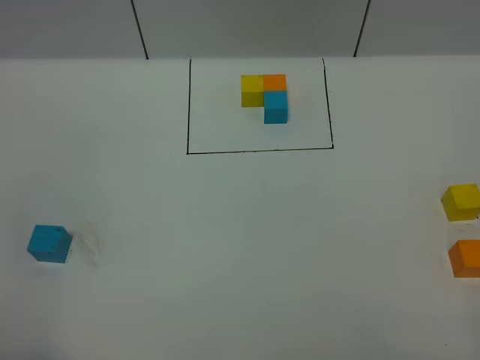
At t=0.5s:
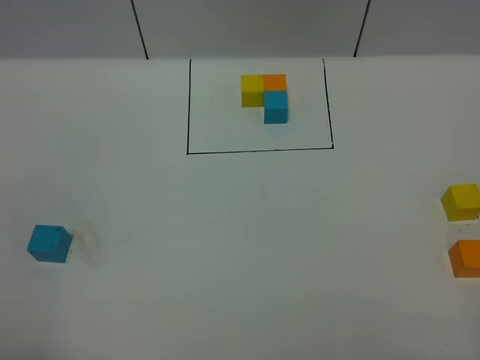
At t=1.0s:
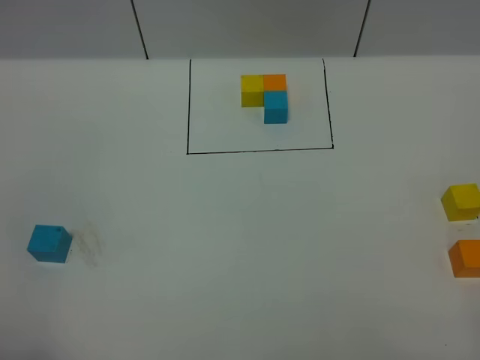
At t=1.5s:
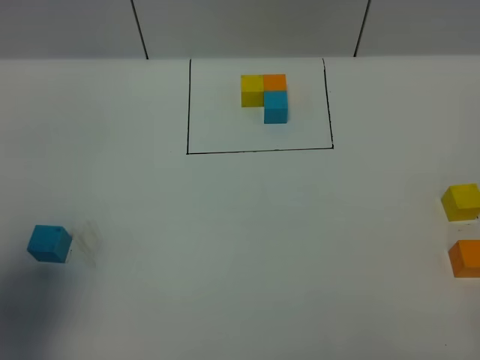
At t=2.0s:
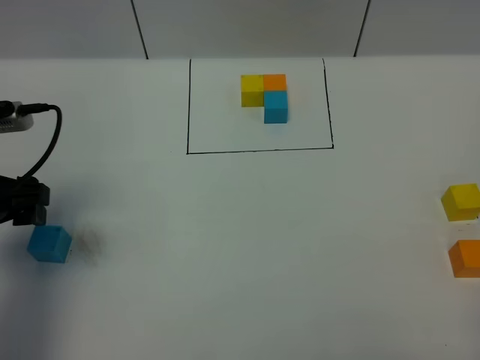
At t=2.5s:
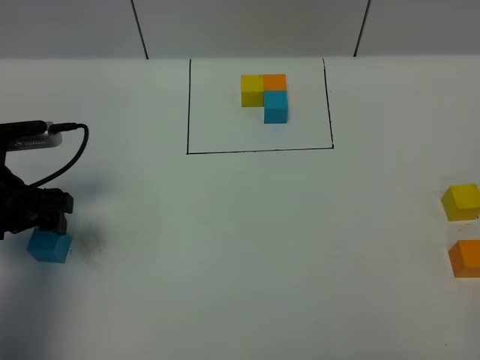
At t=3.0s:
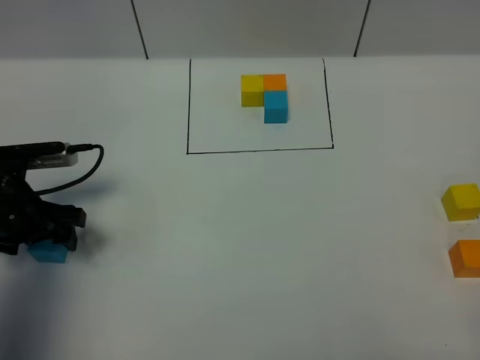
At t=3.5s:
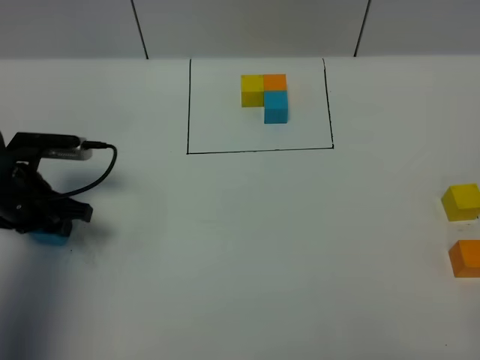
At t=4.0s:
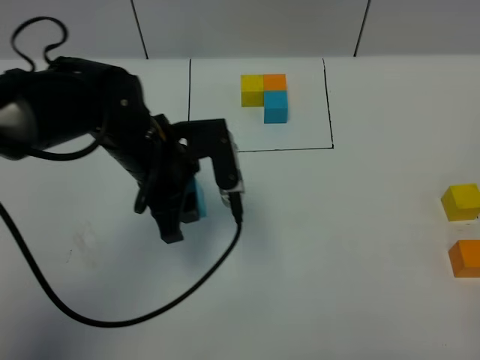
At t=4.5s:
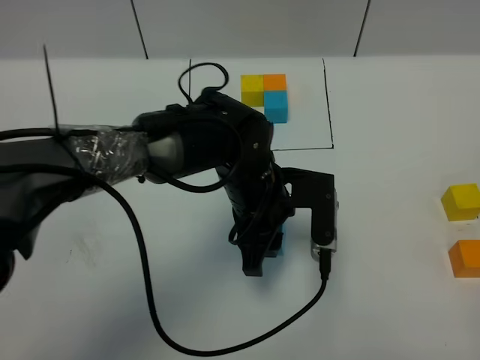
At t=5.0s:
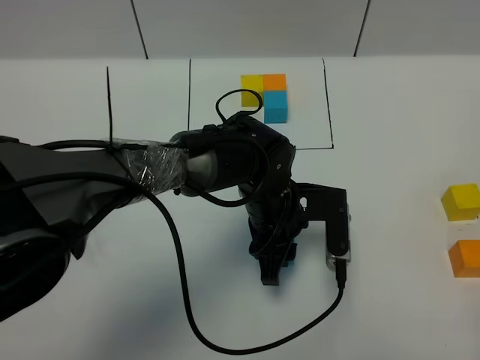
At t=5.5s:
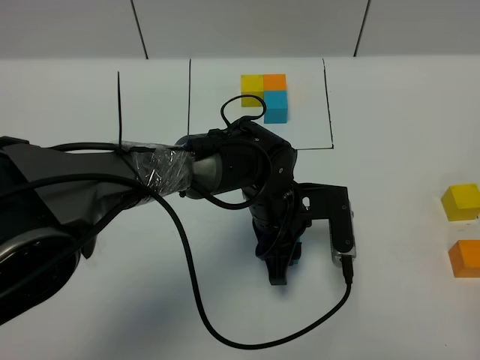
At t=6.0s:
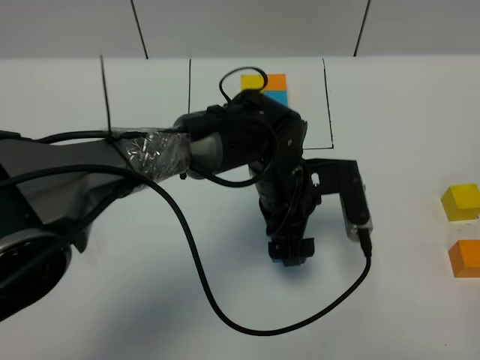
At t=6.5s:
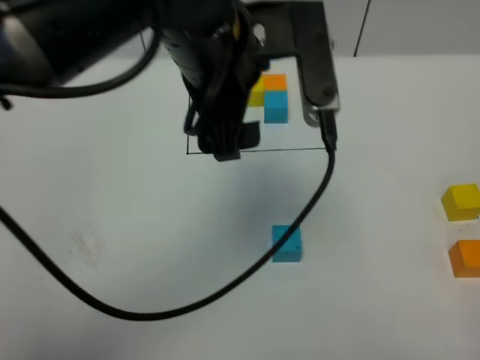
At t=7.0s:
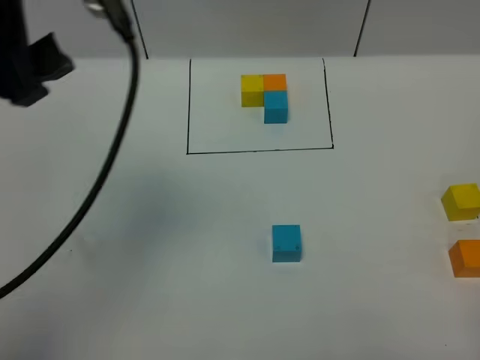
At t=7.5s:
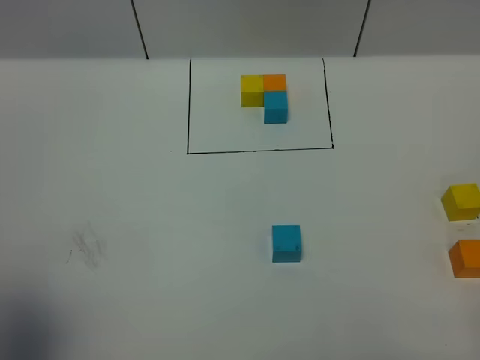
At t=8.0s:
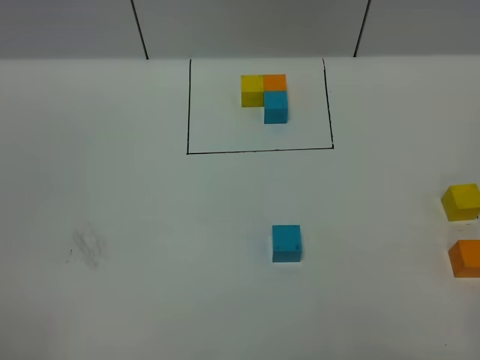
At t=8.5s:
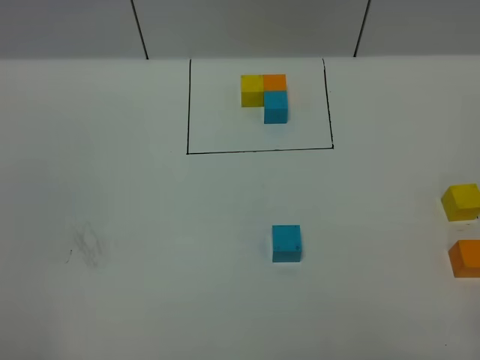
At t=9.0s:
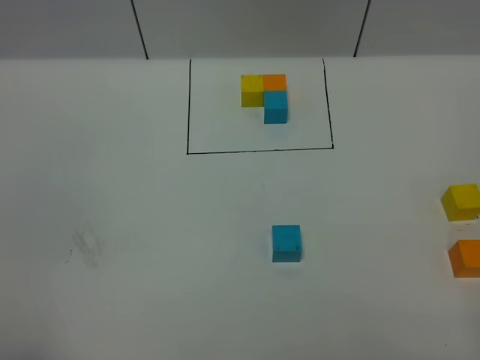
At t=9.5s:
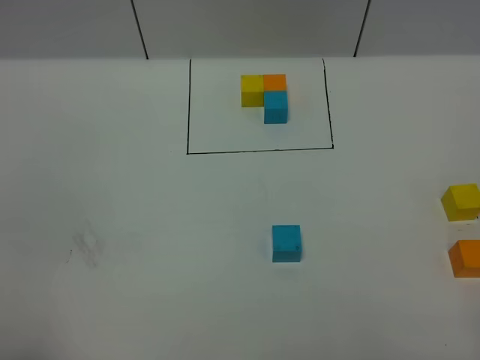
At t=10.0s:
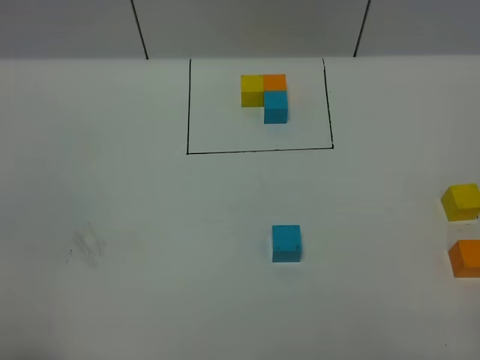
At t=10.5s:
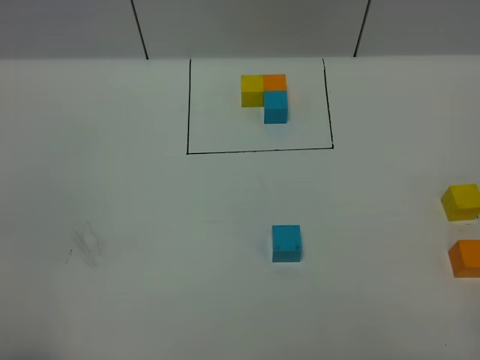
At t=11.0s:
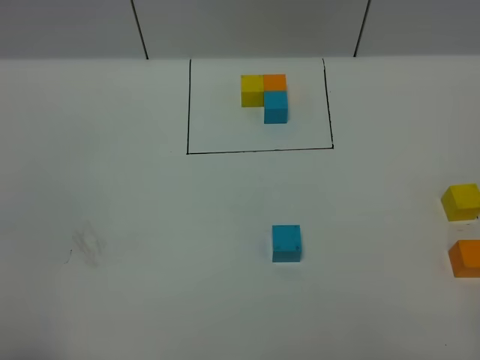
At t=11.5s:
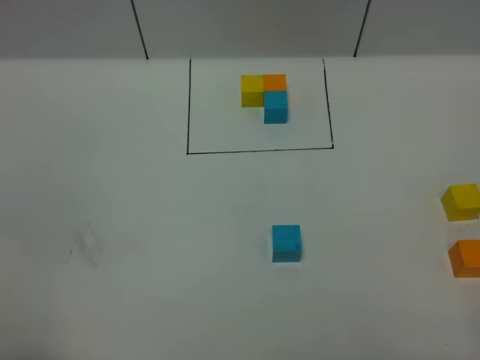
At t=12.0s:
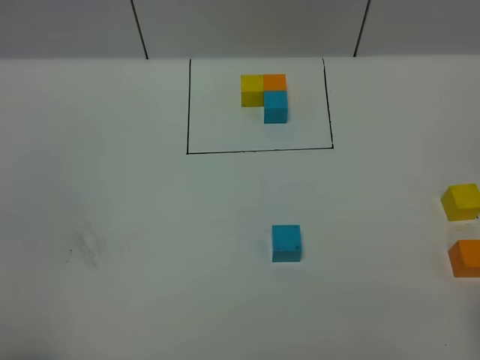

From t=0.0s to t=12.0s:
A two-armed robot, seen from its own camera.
Task of the whole recording: According to the building block template in front, assemble the scattered blocks together.
Step, from t=1.5s to t=6.0s: Put the blue cube in the center of the table.
From t=0.0s to t=2.0s: The left gripper is displaced forward by approximately 25 cm.
From t=2.0s to t=4.0s: The left gripper travels to the right by approximately 20 cm, and closes its fingers.
From t=4.0s to t=6.0s: The left gripper is displaced to the right by approximately 15 cm, and opens.
From t=6.0s to t=8.0s: The left gripper moves to the left, backward and upward, roughly 50 cm.

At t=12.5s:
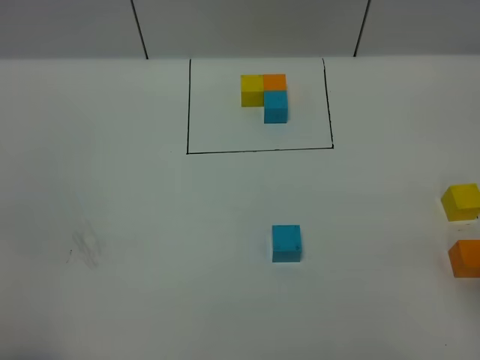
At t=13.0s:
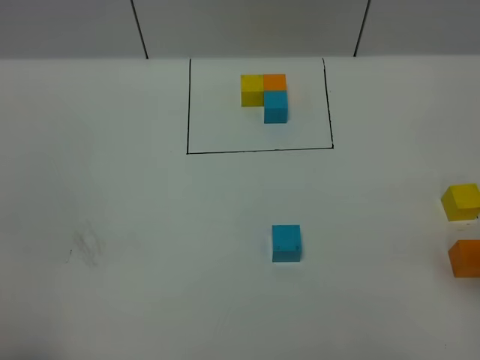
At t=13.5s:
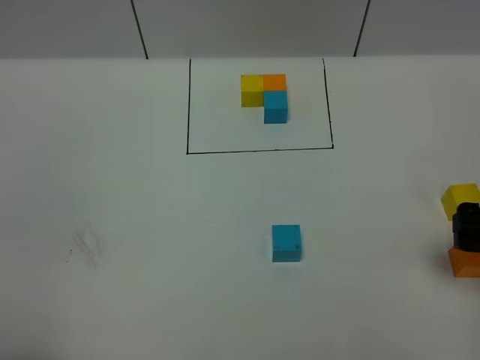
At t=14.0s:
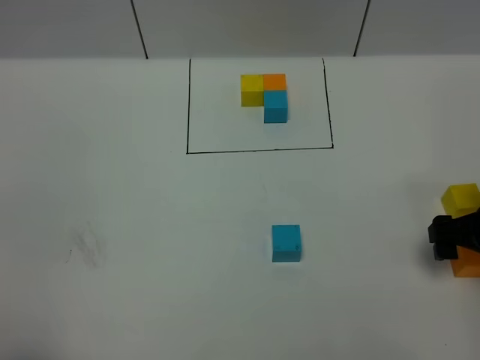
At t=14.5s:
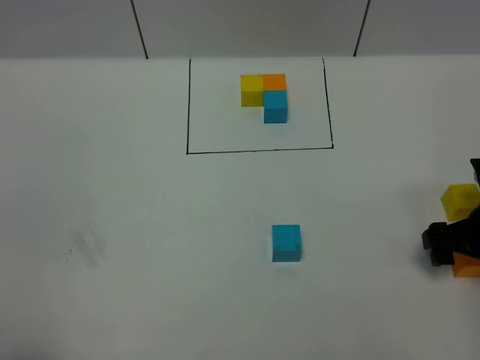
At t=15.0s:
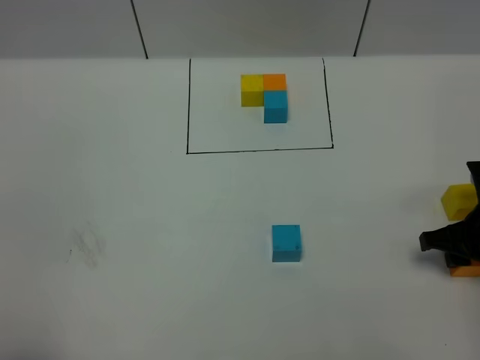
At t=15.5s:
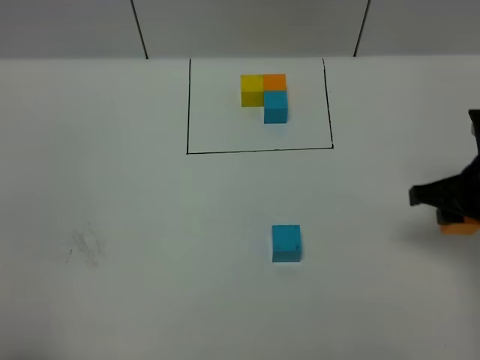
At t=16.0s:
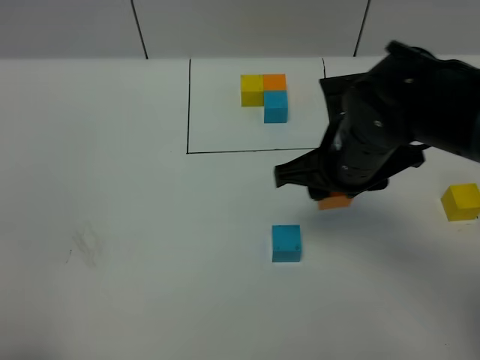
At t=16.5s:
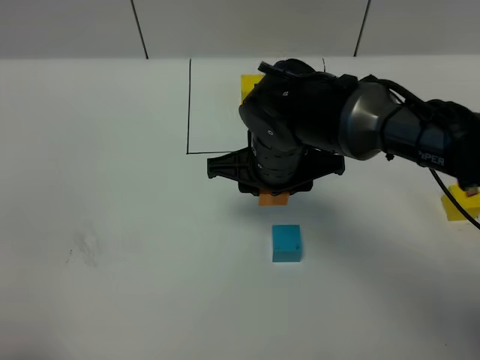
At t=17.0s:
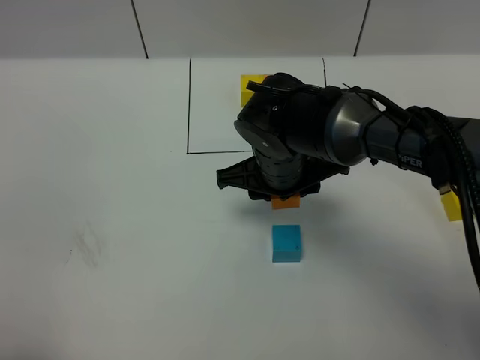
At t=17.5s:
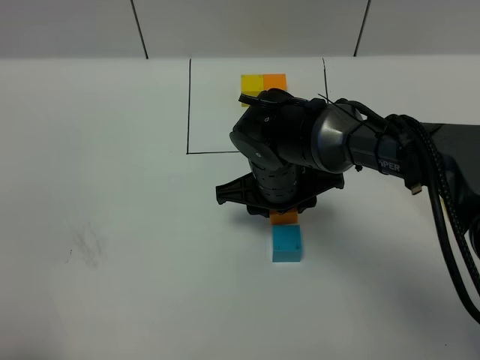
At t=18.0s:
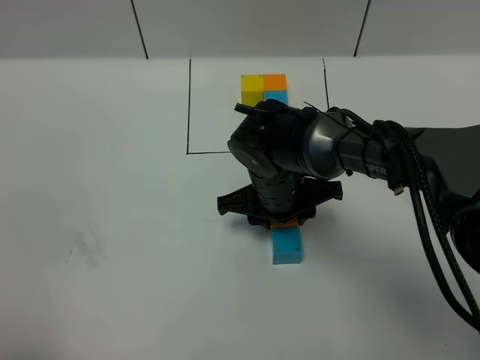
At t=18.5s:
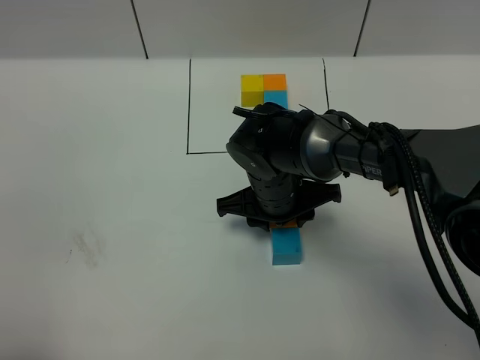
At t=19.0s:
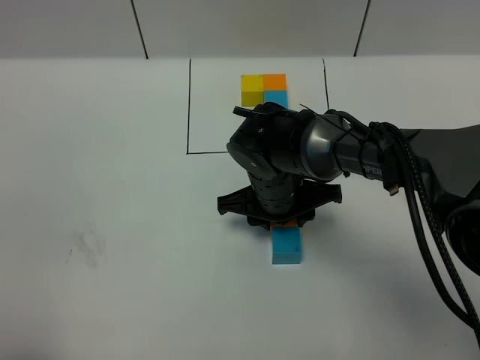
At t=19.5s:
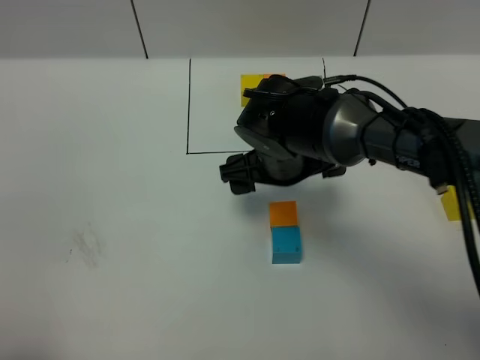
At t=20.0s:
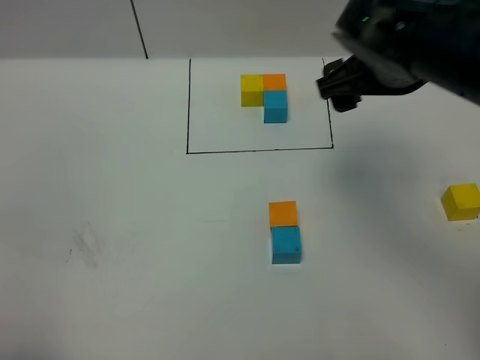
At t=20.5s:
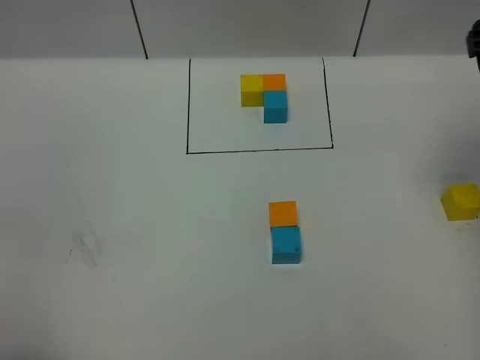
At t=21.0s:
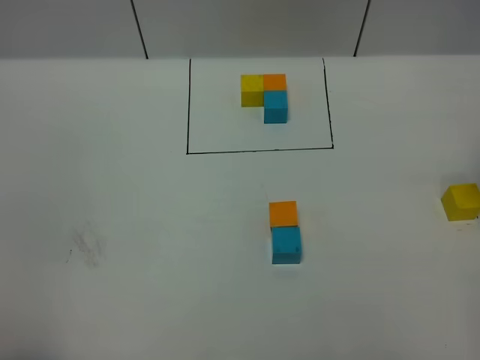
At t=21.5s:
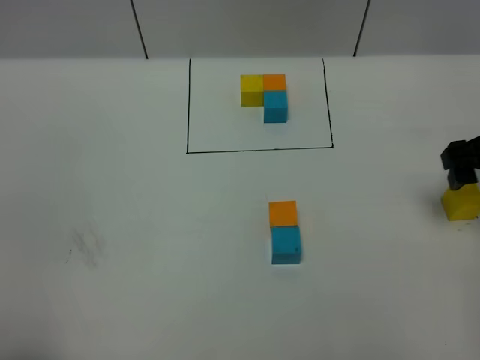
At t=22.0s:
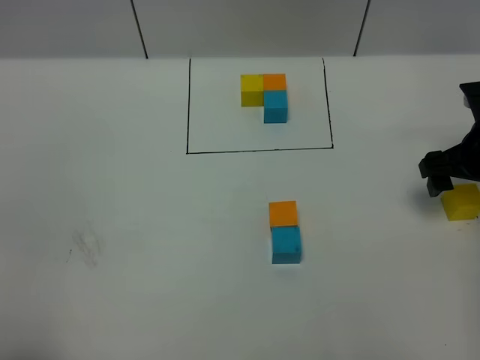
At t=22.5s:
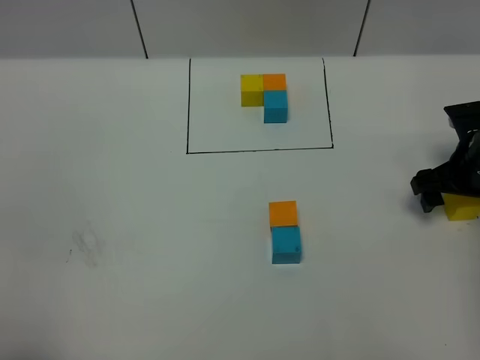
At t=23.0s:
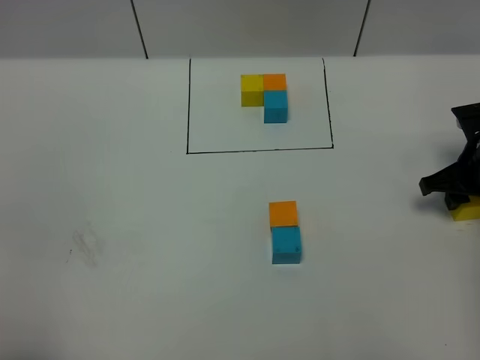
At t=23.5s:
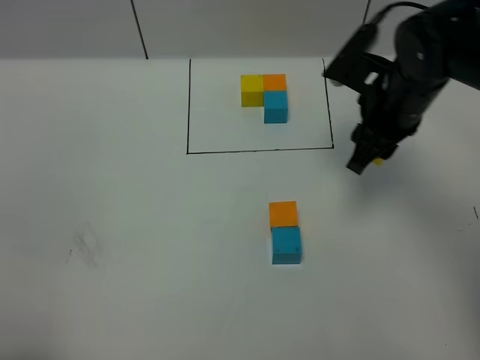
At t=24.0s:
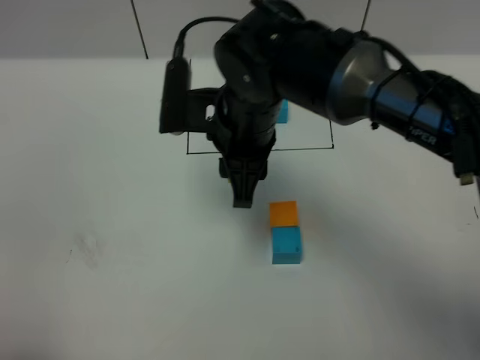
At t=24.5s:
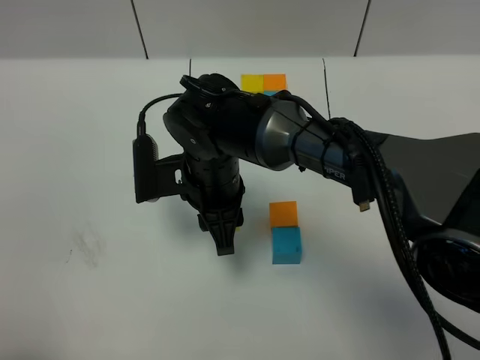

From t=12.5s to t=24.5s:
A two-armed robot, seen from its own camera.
Task of the whole recording: According to the building block template in front, assemble the scattered blocks together.
Step, from t=12.5s to t=19.0s: Put the orange cube on the behind of the blue cube.
From t=12.5s to t=14.5s: The right gripper goes about 20 cm downward and forward.
From t=14.5s to t=16.5s: The right gripper heads to the left, covering roughly 25 cm, and closes its fingers.
From t=16.5s to t=18.5s: The right gripper travels downward by roughly 5 cm.
From t=18.5s to t=20.5s: The right gripper shifts approximately 35 cm upward and to the right, and opens up.
From t=20.5s to t=22.5s: The right gripper moves downward, approximately 25 cm.
From t=22.5s to t=24.5s: The right gripper shifts roughly 35 cm to the left, and closes its fingers.

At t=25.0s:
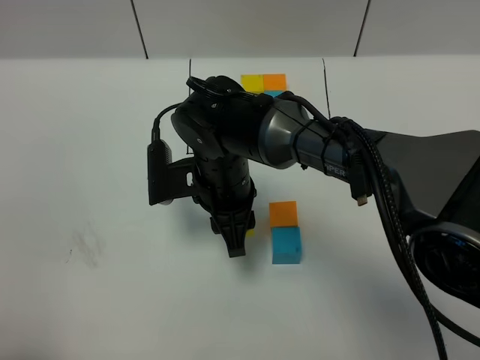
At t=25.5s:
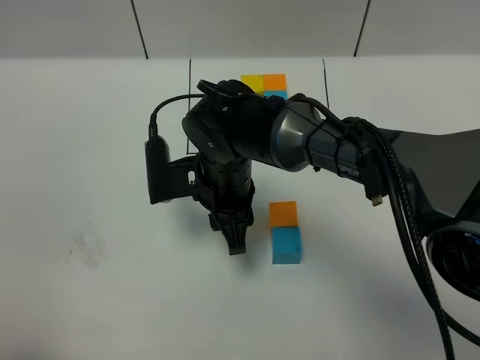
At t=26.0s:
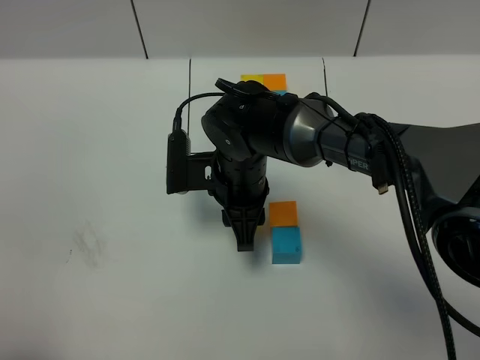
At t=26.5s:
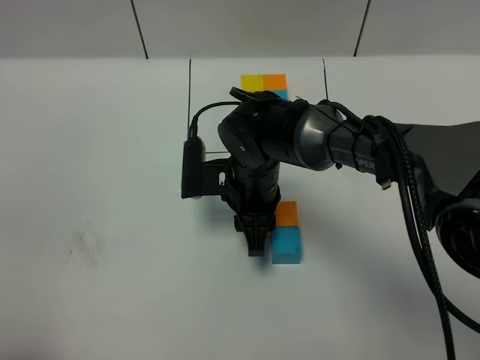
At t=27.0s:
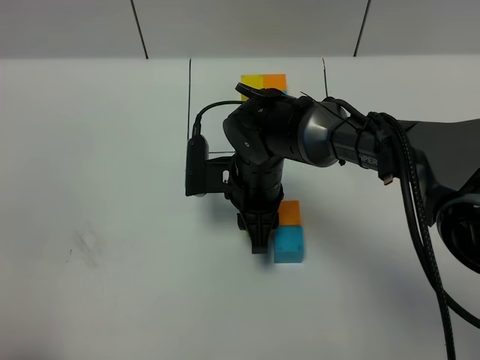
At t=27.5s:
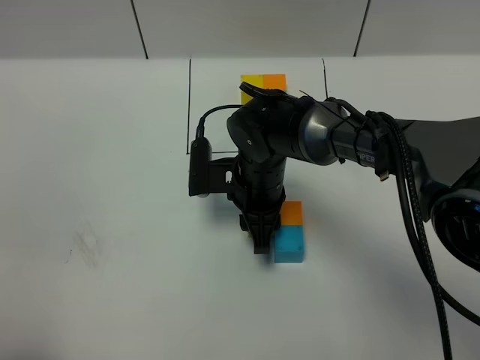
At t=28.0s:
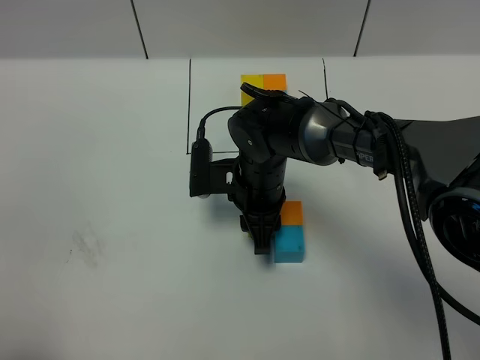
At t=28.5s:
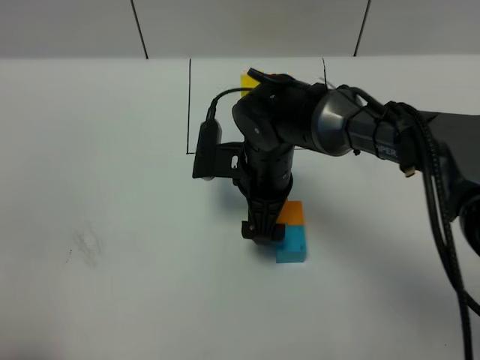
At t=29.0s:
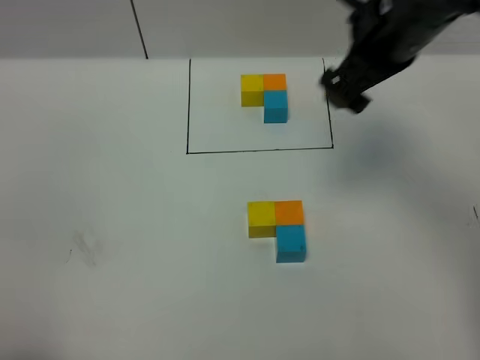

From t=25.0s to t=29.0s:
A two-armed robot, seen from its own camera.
Task of the whole recording: According to the building block template in front, assemble the scattered blocks together.
From t=25.0s to t=27.0s: The right gripper ends up about 5 cm from where it was.
From t=27.0s to t=29.0s: The right gripper travels upward and to the right by about 25 cm, and opens its fingers.
